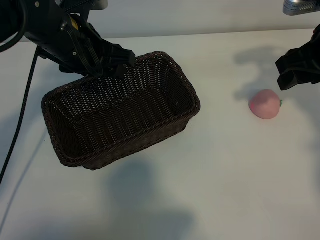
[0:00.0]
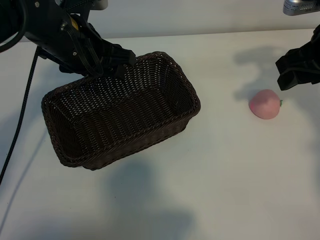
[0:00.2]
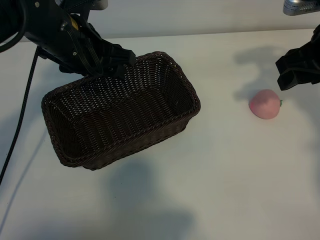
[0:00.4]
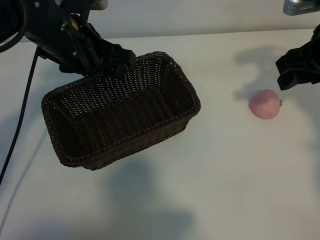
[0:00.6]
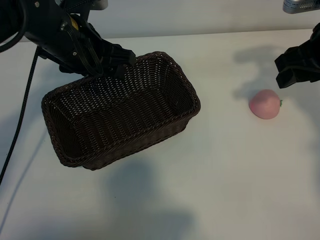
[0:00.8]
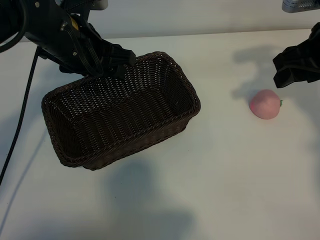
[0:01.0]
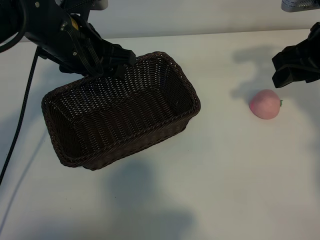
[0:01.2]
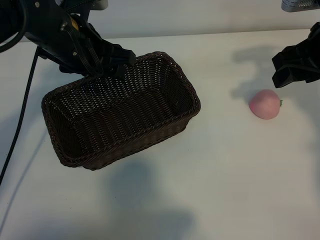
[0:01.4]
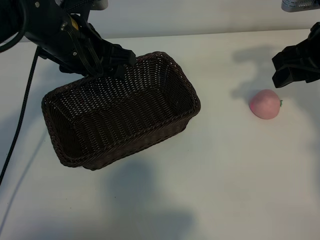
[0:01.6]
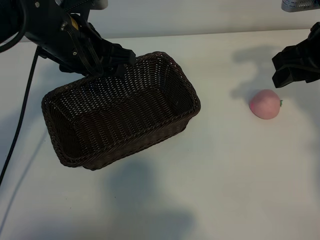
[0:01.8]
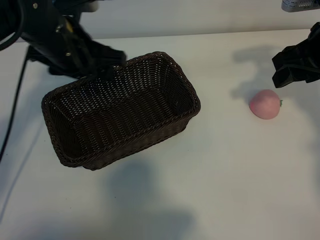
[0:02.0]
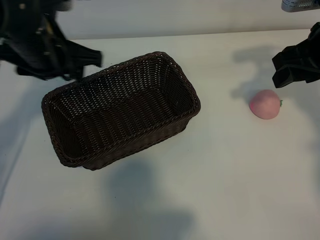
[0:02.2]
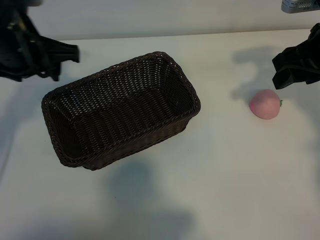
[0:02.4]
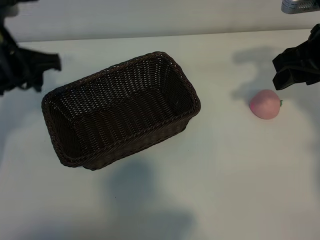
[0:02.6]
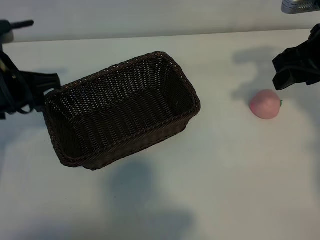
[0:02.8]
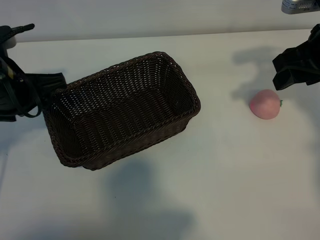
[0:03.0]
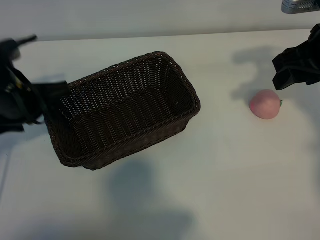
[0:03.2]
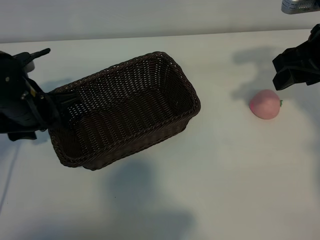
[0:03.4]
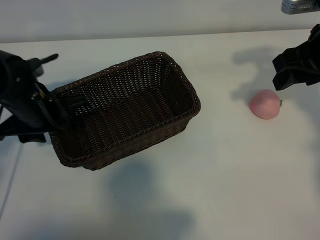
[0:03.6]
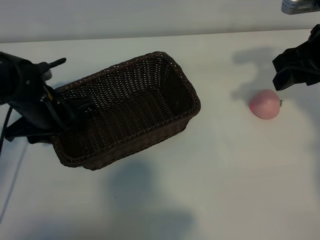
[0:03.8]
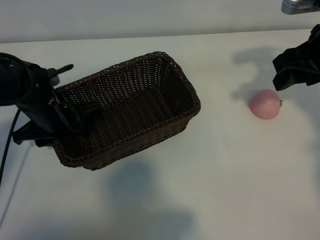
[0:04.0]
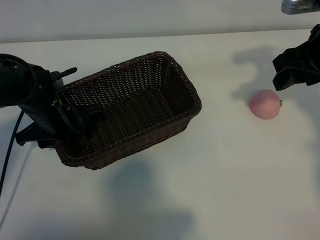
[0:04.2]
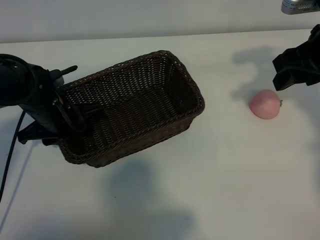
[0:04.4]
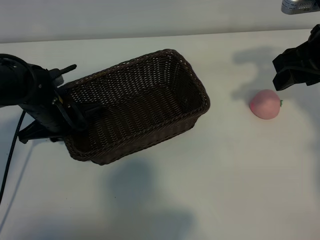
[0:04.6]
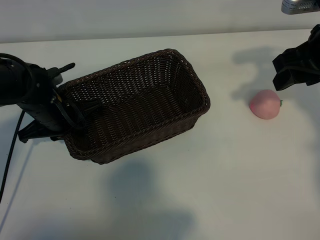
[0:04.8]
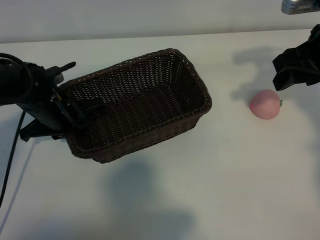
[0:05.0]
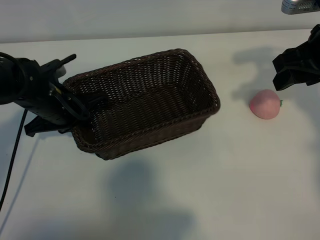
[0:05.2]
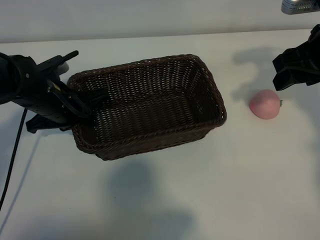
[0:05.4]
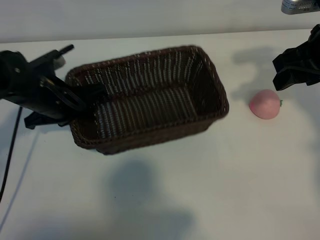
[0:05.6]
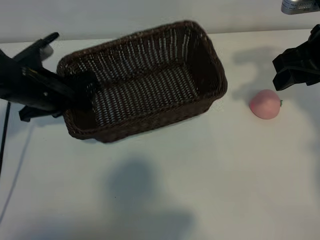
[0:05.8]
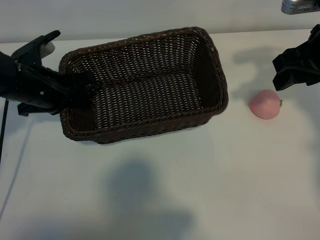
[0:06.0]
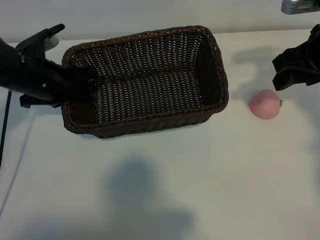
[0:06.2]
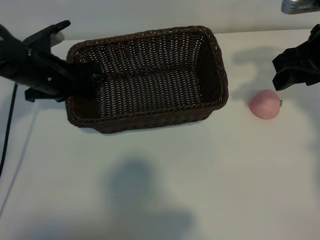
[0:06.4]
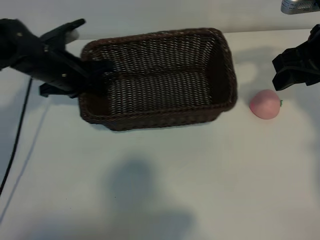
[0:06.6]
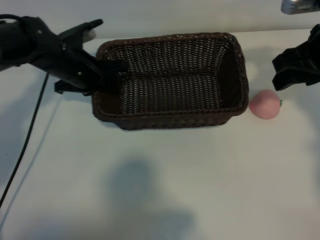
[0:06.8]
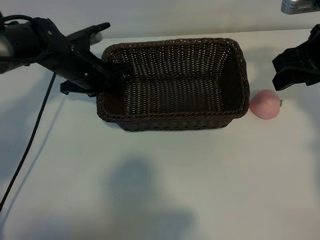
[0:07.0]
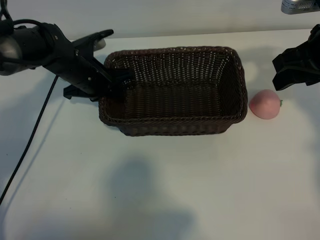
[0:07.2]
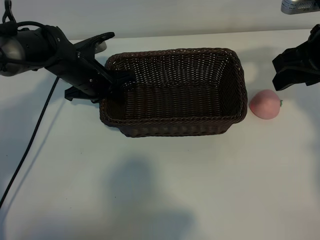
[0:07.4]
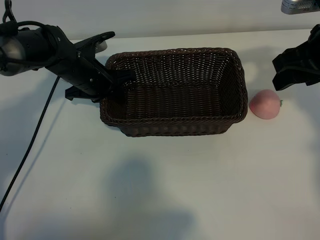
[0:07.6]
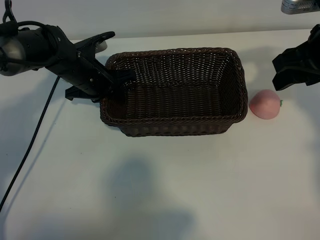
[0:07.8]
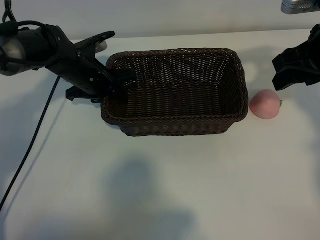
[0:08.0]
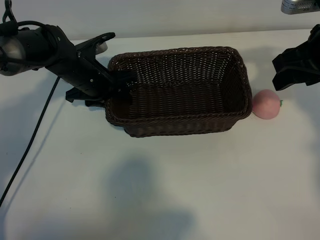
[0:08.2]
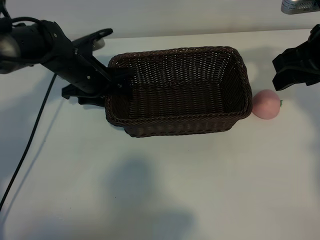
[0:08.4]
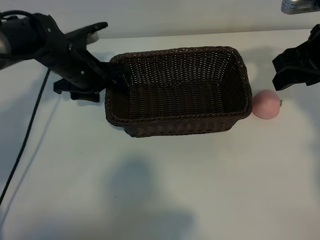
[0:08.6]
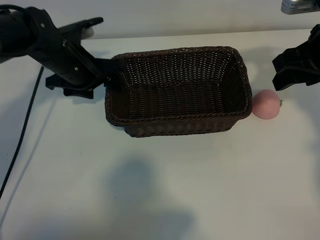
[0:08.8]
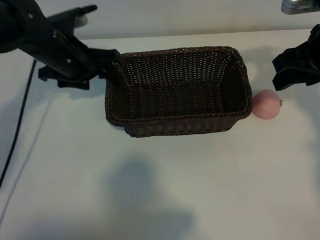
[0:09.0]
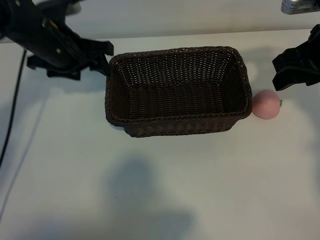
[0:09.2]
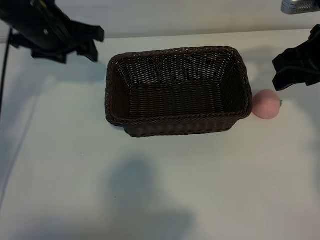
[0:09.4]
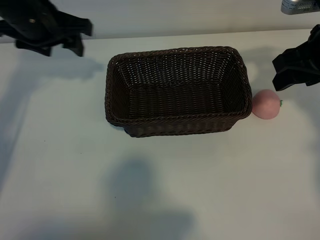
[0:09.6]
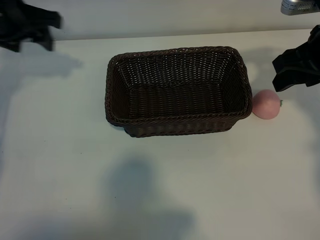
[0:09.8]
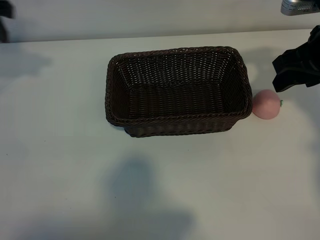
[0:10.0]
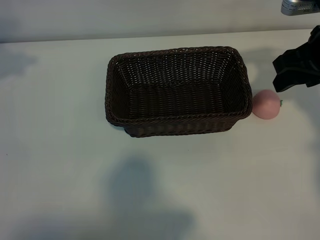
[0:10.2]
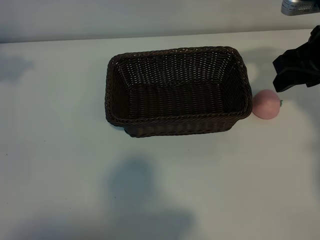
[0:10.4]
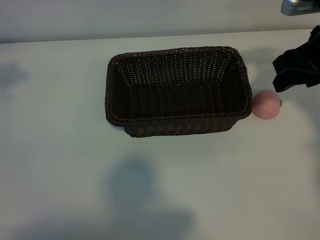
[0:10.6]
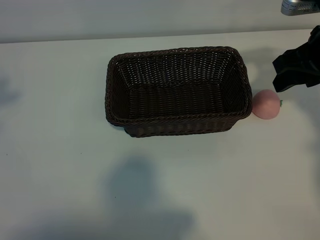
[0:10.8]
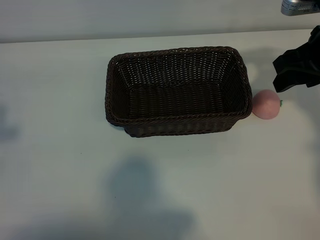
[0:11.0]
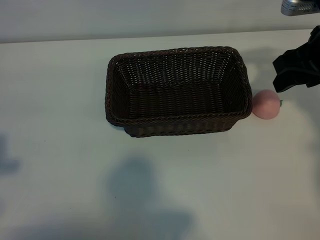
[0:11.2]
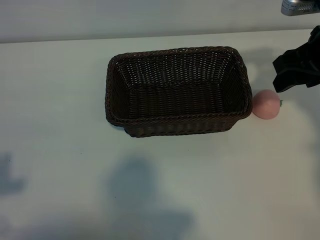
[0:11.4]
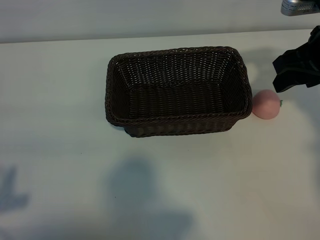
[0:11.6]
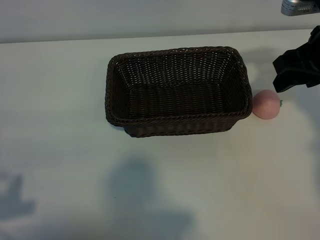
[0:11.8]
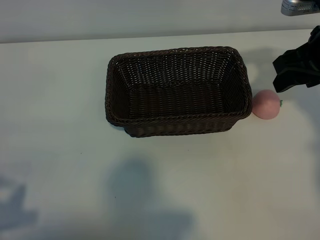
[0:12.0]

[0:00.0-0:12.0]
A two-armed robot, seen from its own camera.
Task of the whole recording: pick up the peach and put it into the basket.
Step, 0:00.8 to 0:04.8: Grasp the basket with left gripper.
Step, 0:05.0 to 0:08.4: Place the basket in the center of view with left gripper.

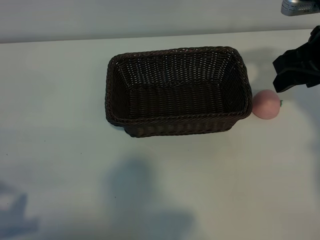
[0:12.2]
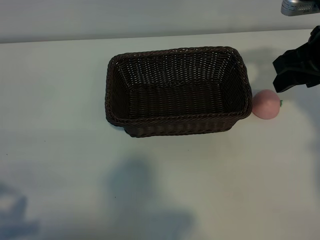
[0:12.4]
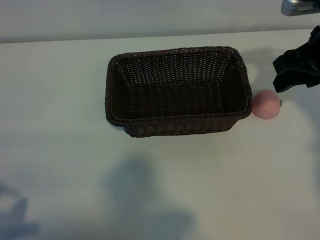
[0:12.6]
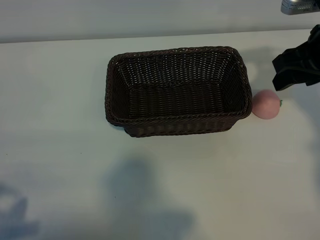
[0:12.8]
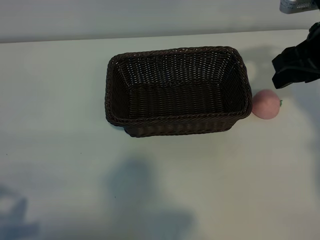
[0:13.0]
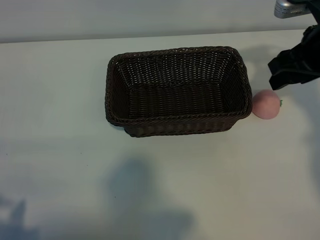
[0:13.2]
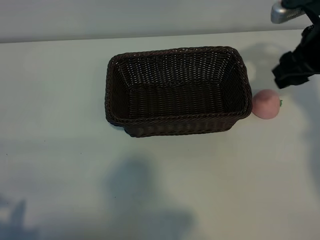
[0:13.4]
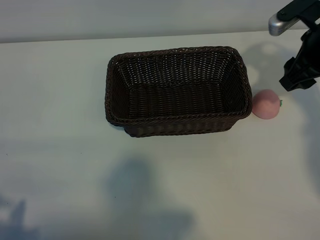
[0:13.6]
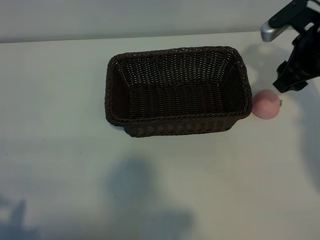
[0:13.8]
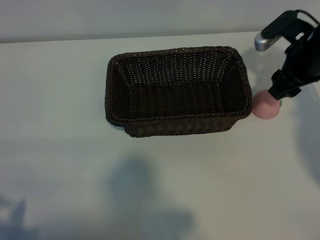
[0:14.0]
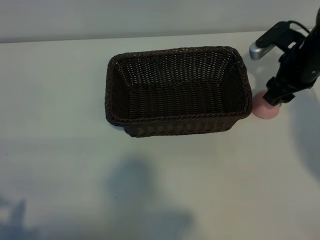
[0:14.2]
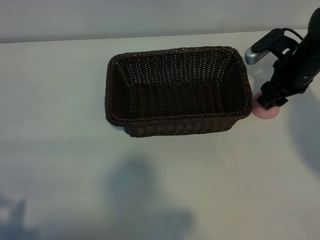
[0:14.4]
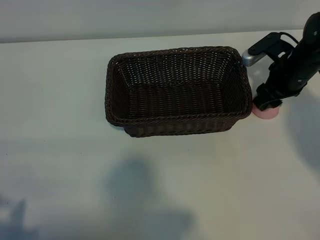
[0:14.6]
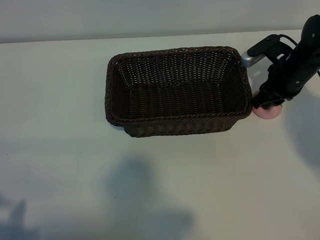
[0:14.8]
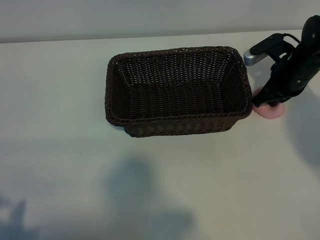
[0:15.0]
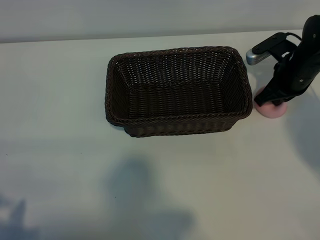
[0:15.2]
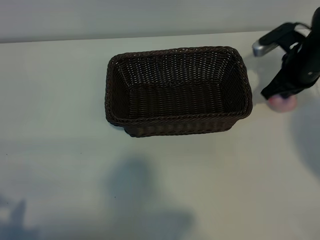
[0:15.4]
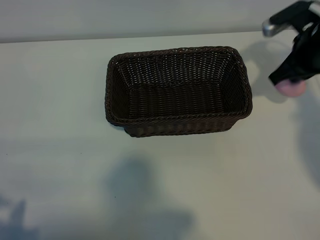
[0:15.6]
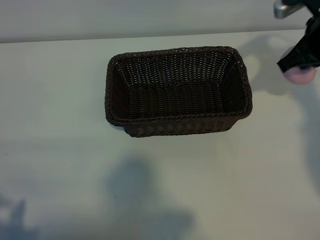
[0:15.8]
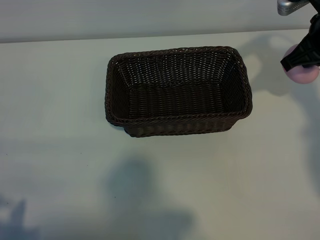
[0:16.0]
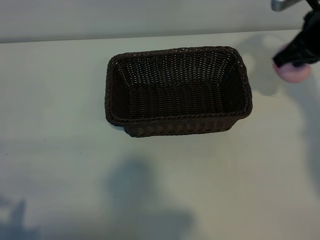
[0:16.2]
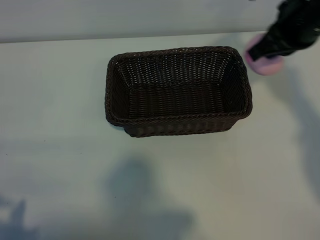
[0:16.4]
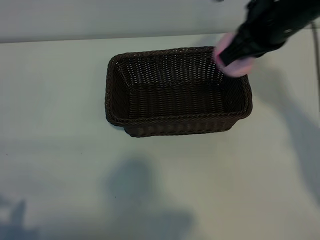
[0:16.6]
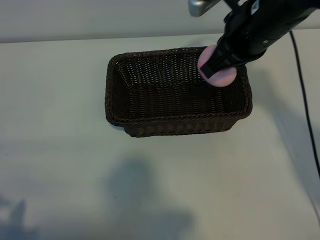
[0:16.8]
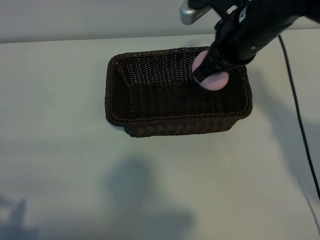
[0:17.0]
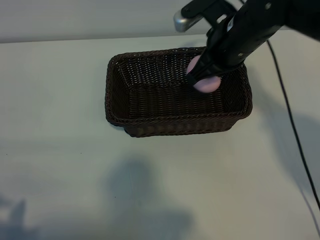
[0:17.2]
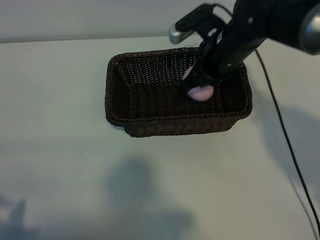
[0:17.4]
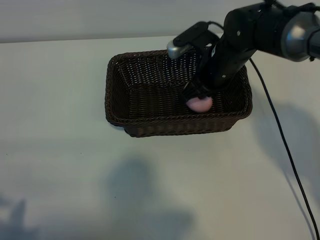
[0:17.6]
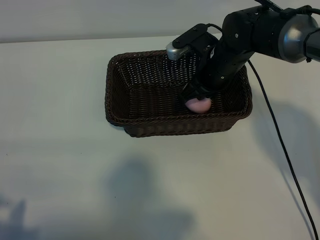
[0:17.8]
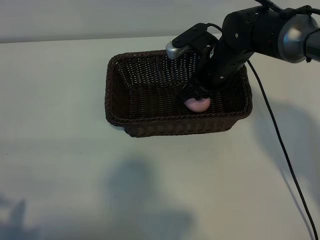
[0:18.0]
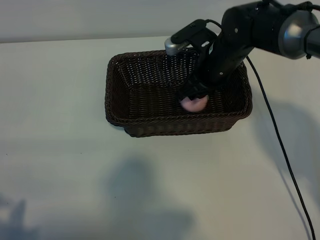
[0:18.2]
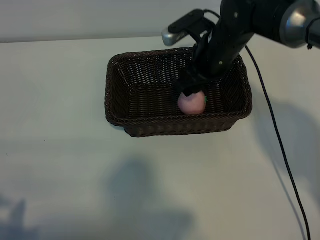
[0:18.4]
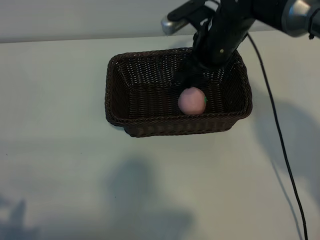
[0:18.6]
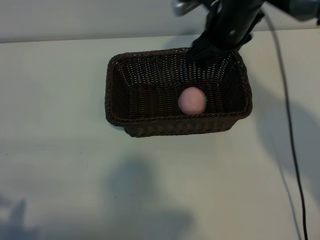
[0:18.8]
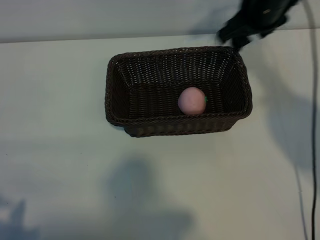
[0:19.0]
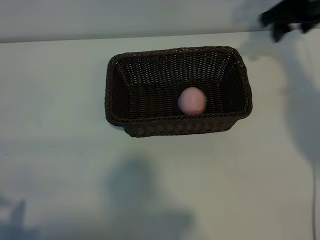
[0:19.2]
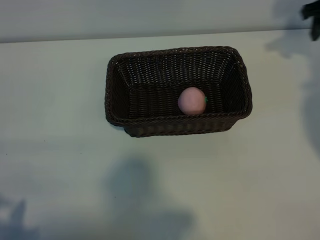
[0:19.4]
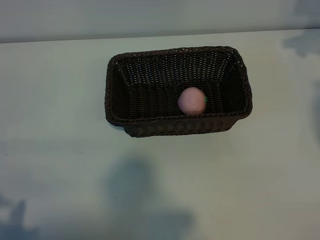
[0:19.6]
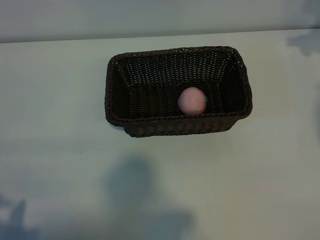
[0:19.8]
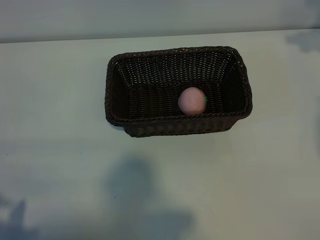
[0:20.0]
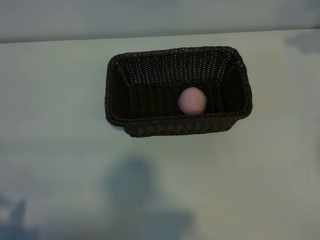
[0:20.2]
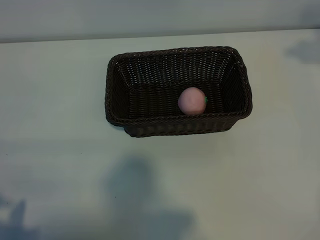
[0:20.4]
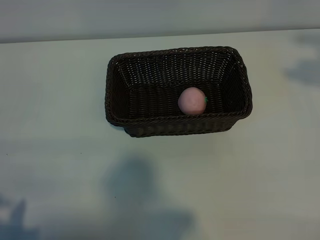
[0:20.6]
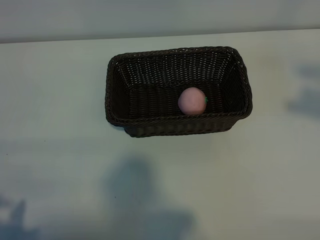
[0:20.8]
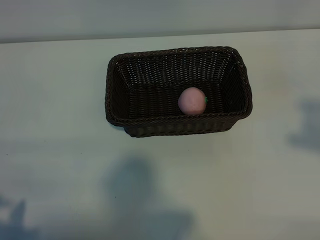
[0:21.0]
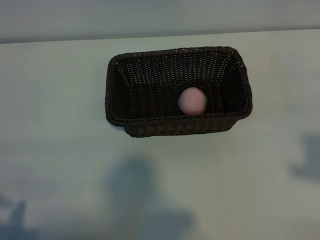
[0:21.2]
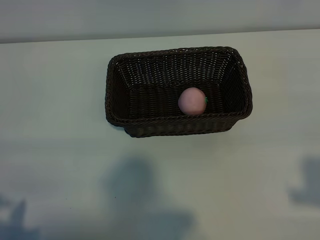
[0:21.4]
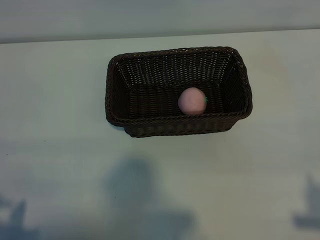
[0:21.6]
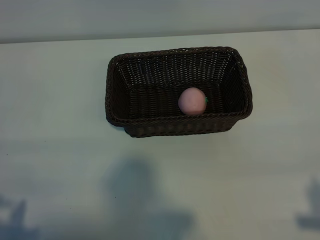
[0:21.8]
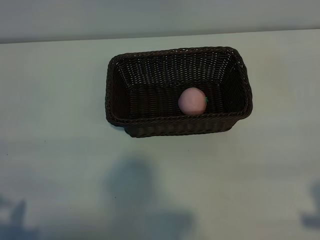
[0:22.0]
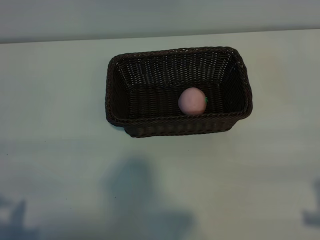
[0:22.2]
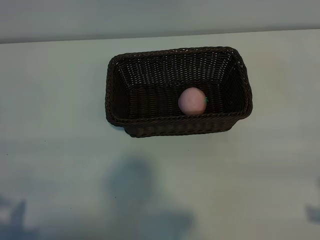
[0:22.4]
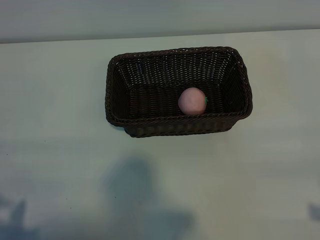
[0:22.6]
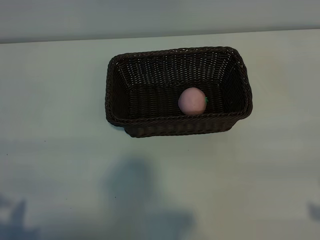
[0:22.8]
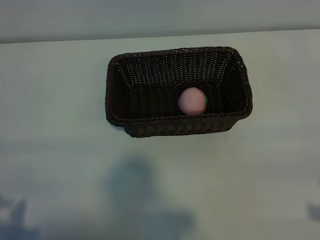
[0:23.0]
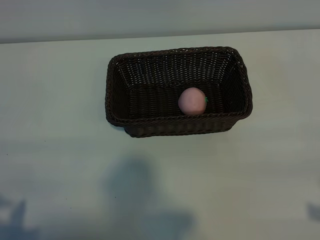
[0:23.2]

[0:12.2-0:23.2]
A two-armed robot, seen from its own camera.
Task of the whole recording: pick up the peach and put it into the basket.
Step, 0:12.2 to 0:14.8: Grasp the peach with right gripper.
Step, 0:15.2 to 0:18.4: Place the peach in the basket with right gripper.
